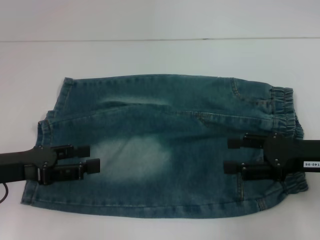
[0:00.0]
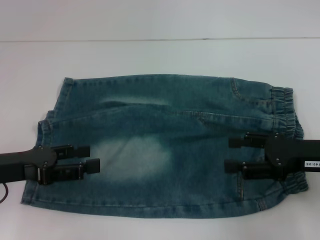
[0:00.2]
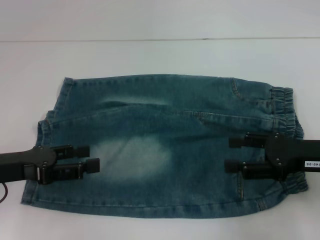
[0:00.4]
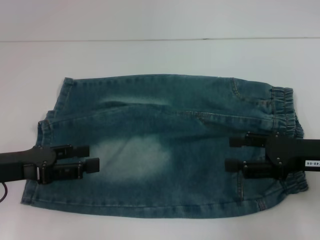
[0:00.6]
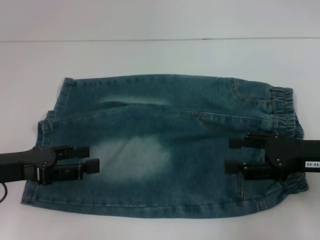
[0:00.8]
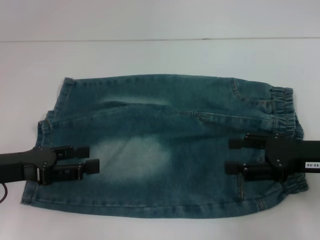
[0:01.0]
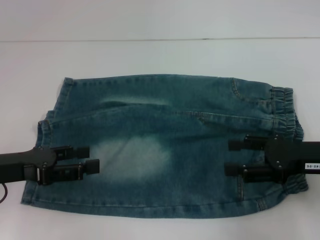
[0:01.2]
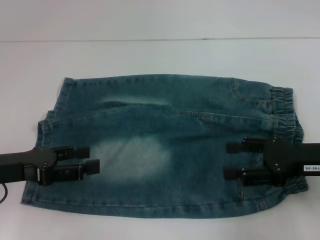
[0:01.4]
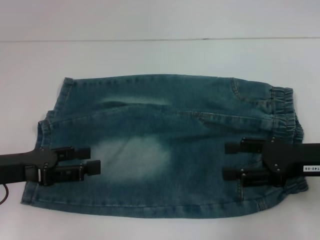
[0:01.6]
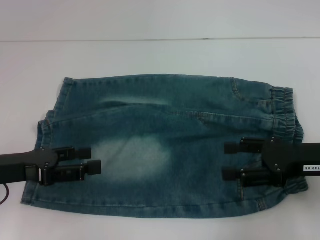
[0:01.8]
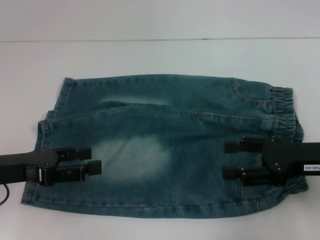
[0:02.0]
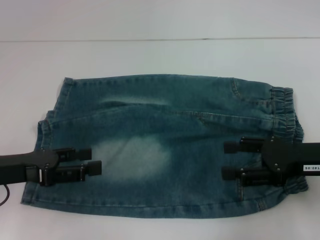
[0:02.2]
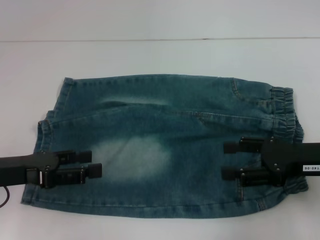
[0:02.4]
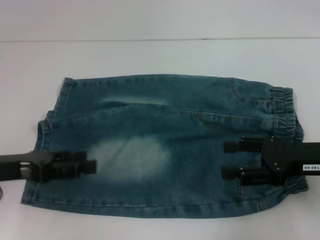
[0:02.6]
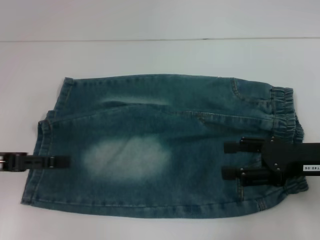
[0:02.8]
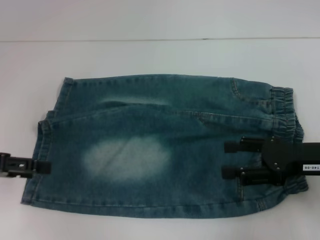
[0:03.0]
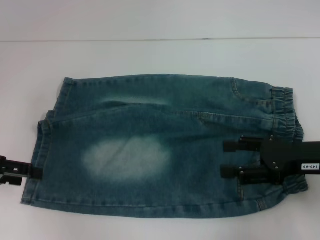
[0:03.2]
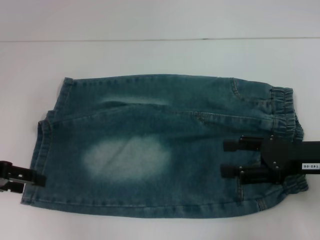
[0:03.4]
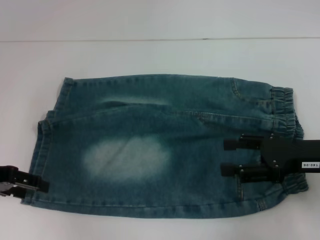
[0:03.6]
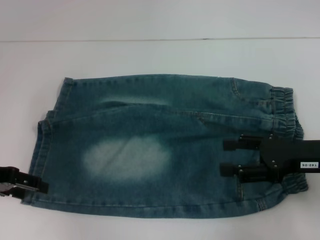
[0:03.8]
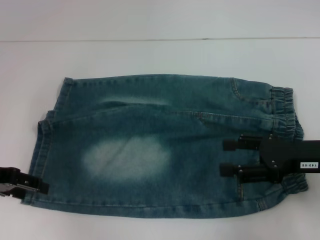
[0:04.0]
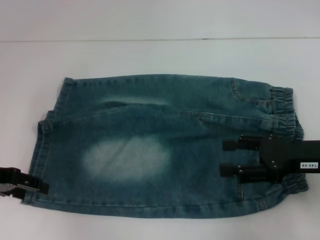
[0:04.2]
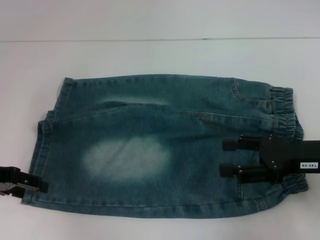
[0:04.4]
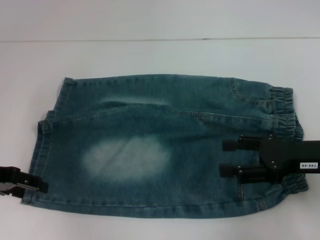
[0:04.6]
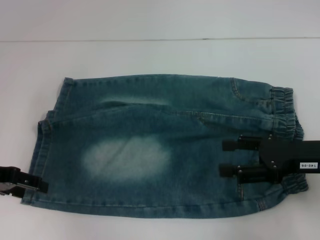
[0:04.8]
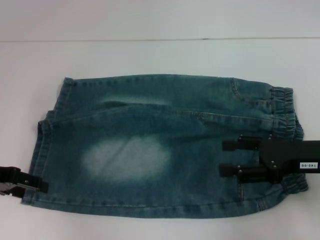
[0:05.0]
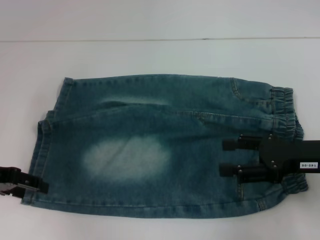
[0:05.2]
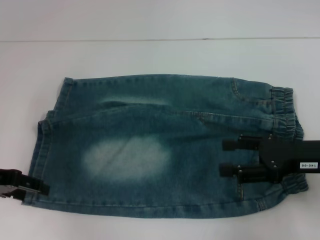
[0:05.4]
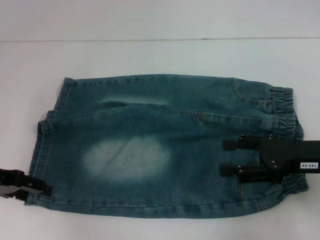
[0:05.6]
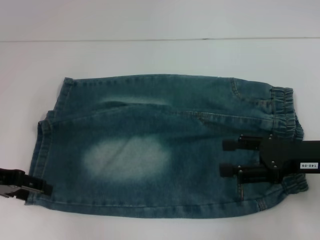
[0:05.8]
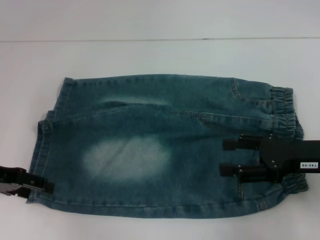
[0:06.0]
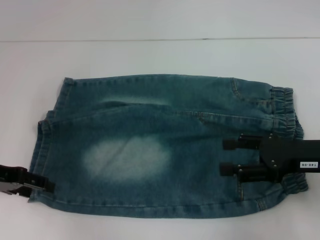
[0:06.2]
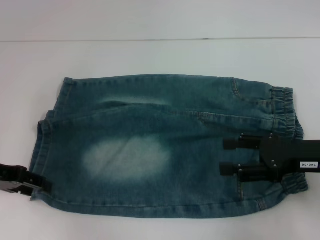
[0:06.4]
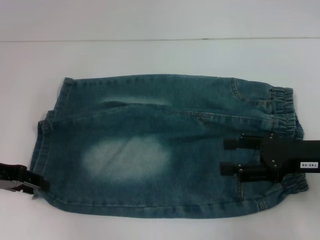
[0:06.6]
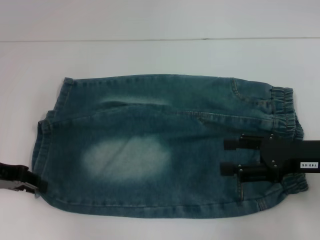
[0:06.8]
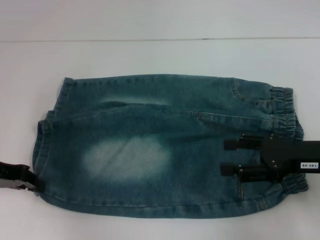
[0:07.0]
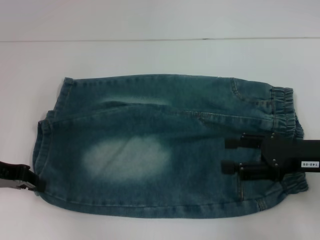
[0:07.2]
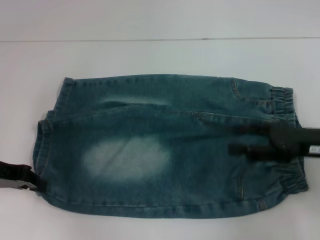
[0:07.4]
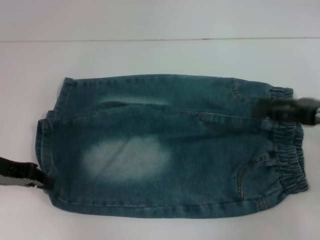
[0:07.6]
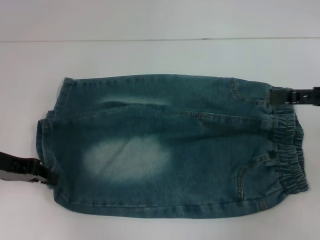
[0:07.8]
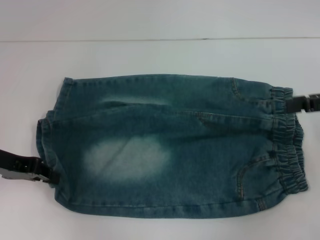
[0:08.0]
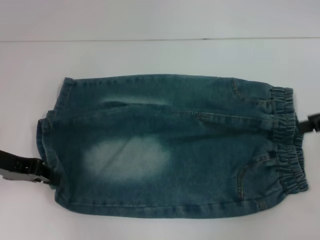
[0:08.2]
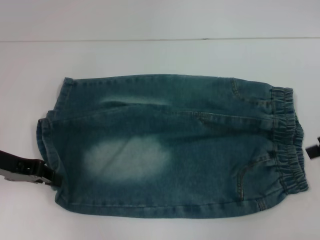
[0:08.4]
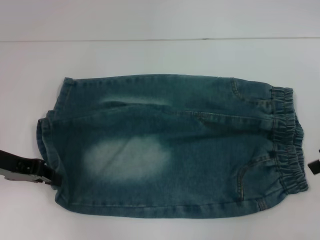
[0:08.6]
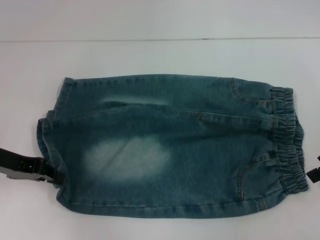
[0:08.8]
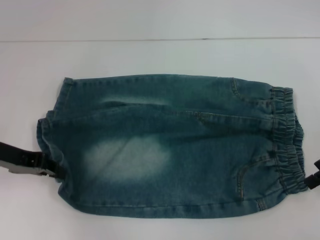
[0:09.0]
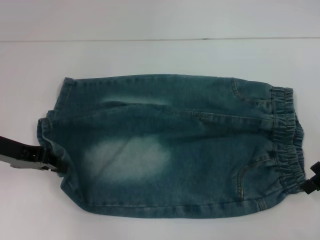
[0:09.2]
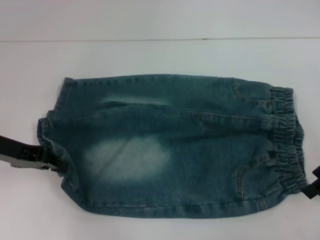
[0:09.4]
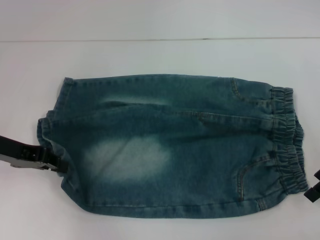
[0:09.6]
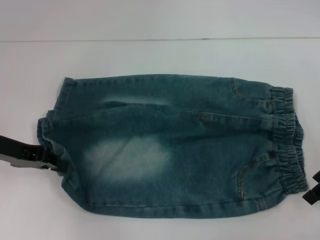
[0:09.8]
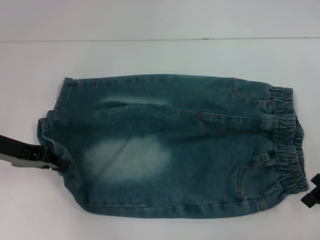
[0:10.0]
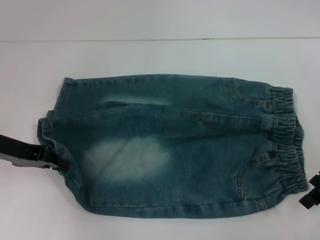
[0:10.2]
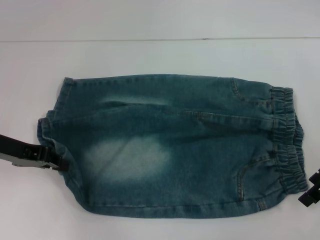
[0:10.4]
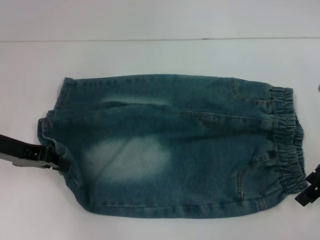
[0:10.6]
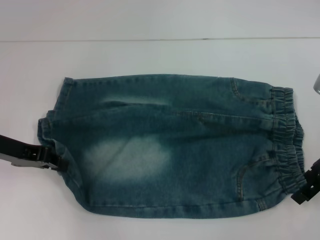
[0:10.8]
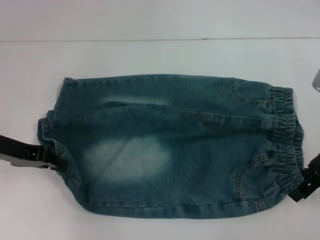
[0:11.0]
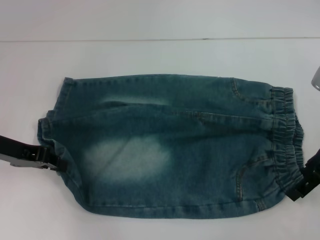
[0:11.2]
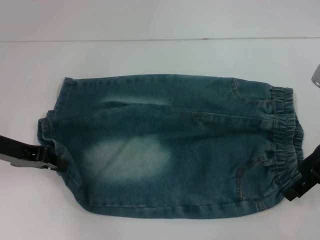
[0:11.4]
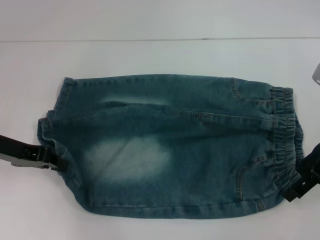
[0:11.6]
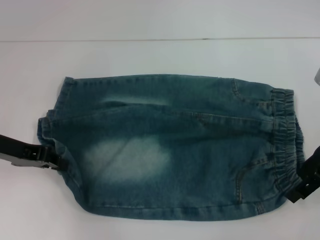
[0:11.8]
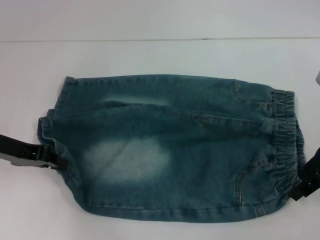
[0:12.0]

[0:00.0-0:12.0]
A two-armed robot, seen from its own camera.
Step, 0:00.0 to 0:07.2: Grab the lower left pant leg with your left hand.
0:00.0 to 0:01.6: Neither gripper changes place.
0:01.6 to 0:03.0: The left gripper moves roughly 5 cm.
0:03.0 to 0:04.4: There are only small adjustments of the grippers.
0:04.4 to 0:06.0: The two grippers keep their place.
0:06.0 to 0:07.6: The right gripper changes place by roughly 5 cm. Meanwhile the left gripper closes its fingers.
0:09.0 to 0:12.0: The grippers make only small movements.

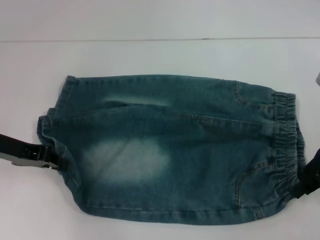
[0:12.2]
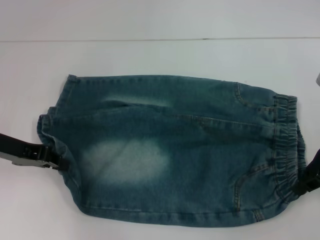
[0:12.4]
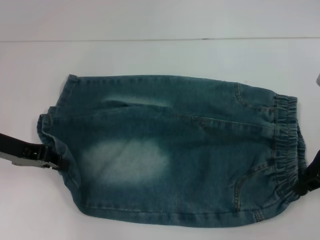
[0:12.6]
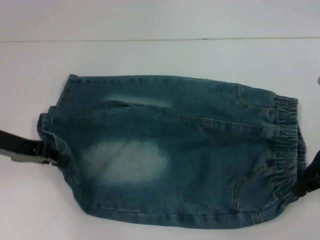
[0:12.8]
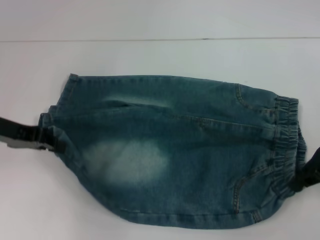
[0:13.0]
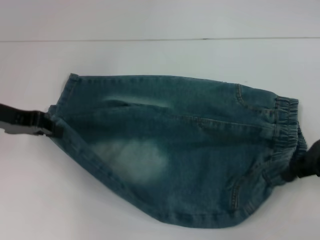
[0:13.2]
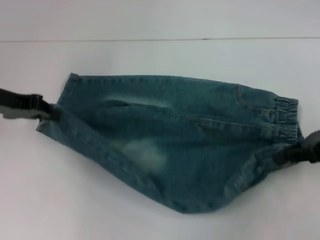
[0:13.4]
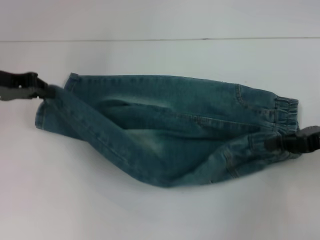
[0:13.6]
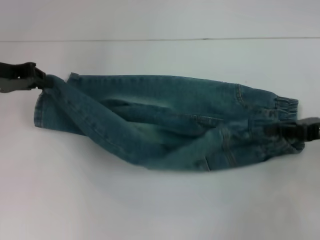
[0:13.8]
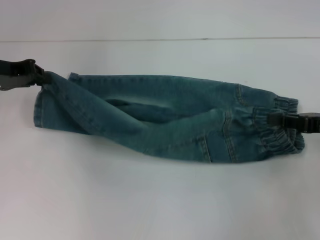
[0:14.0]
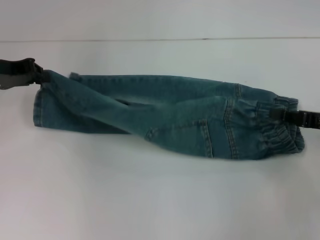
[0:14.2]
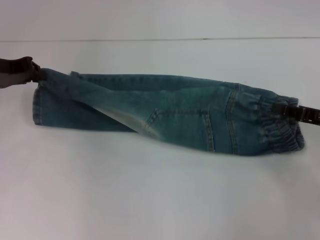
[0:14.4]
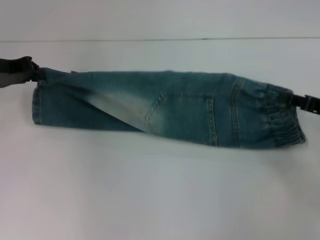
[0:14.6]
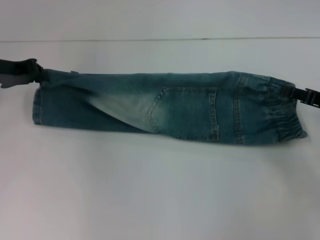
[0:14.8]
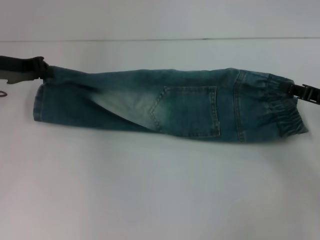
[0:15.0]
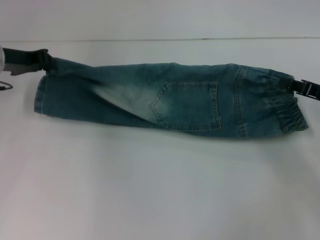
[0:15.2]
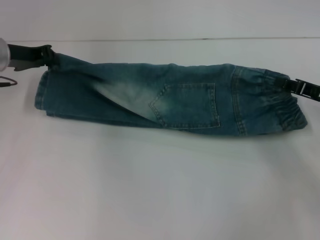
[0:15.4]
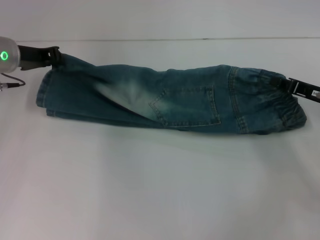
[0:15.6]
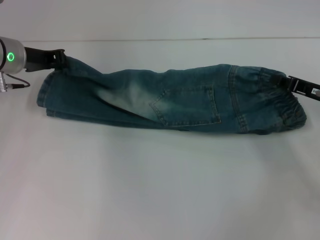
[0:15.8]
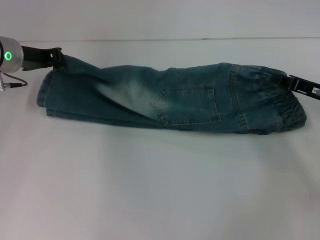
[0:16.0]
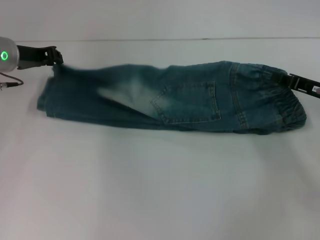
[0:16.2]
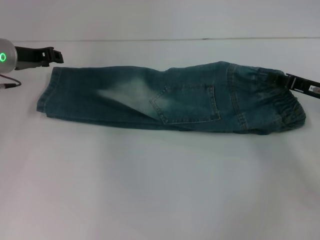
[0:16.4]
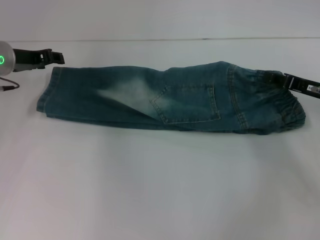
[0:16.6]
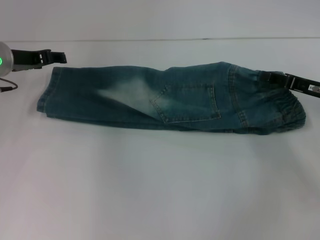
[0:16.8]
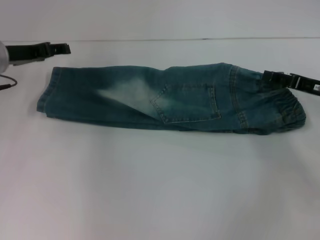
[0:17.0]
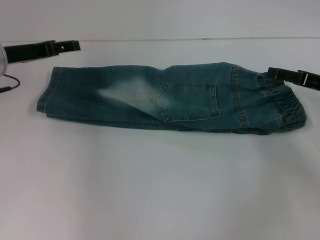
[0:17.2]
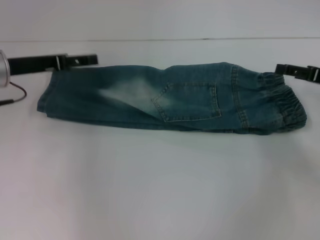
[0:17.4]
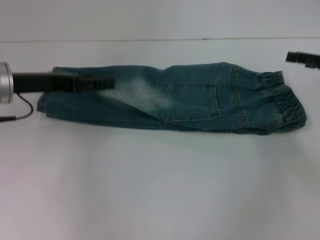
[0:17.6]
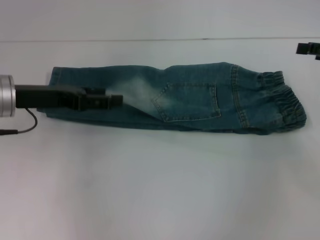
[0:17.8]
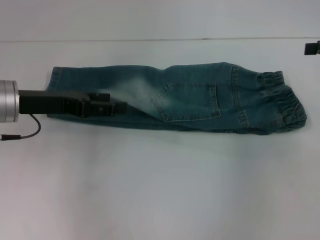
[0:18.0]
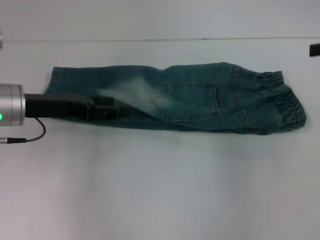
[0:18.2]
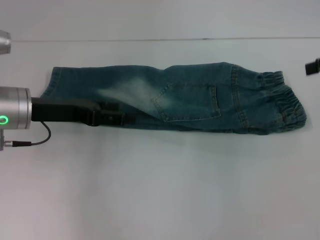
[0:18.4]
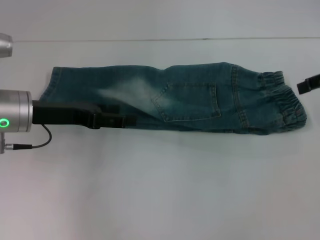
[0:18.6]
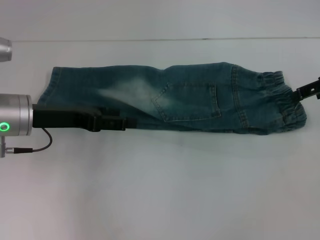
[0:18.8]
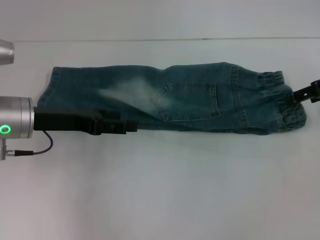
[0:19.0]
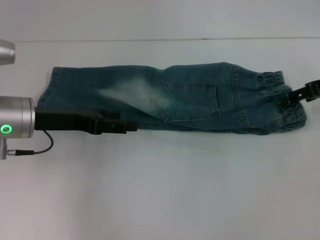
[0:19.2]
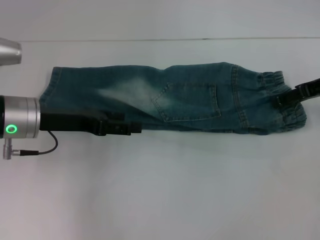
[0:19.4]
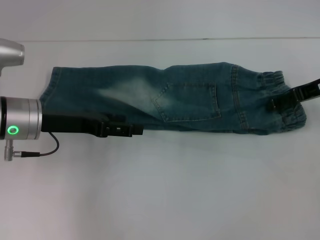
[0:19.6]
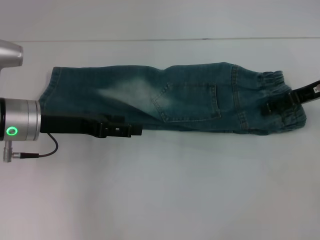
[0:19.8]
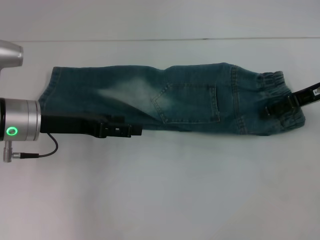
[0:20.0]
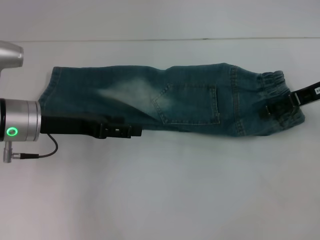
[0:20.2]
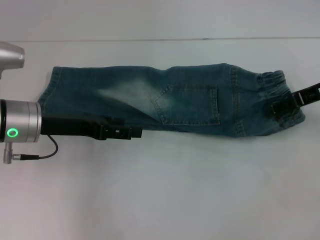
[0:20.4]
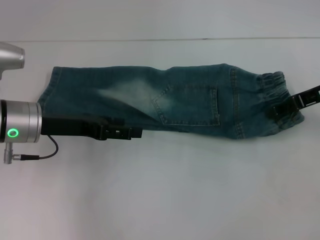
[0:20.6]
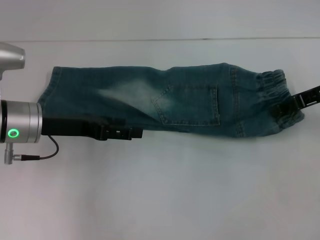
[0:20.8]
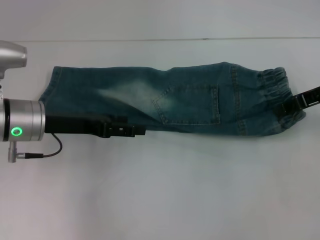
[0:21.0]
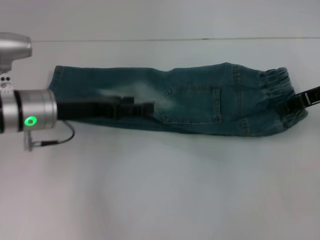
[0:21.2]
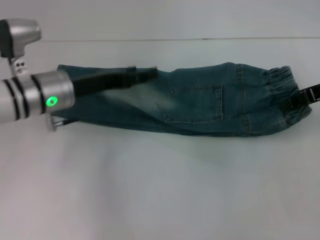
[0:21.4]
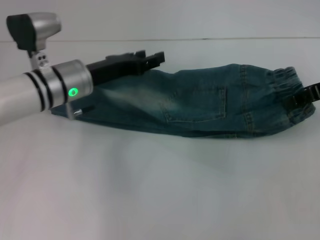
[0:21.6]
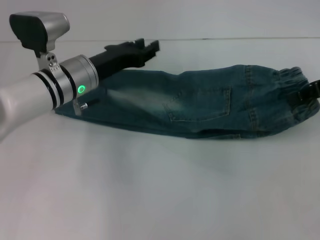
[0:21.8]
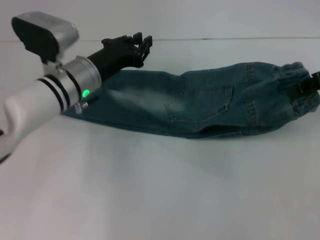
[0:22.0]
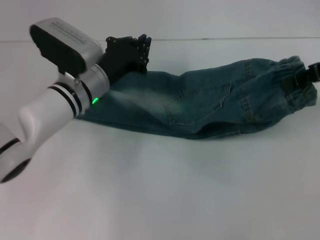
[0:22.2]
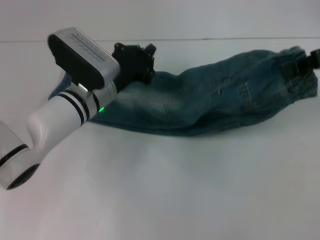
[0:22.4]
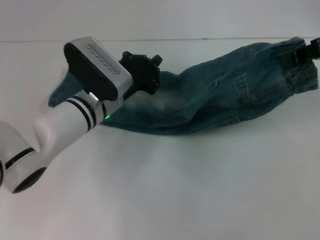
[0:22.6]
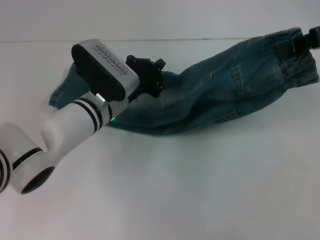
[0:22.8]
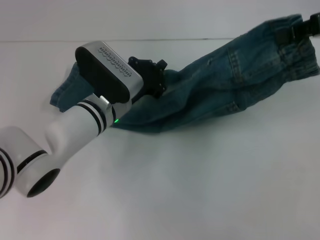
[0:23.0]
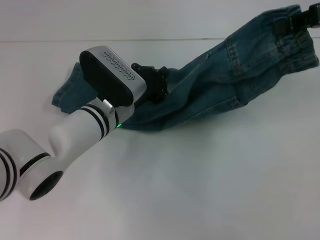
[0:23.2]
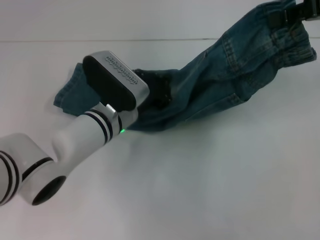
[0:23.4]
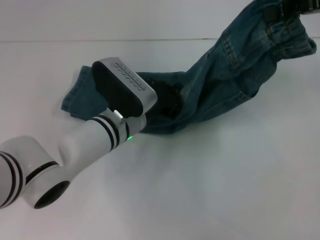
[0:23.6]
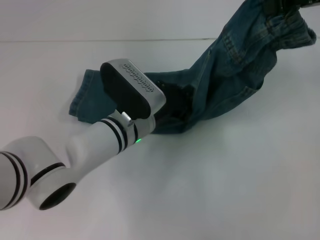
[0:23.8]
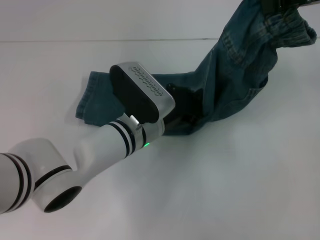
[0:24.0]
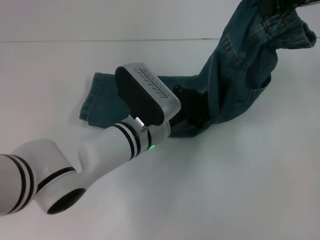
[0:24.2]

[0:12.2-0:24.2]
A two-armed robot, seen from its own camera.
Step, 0:12.6 to 0:16.2: Fold upward with your left hand.
Step, 0:16.6 to 0:17.2: Fold upward with your right hand.
Step, 0:17.4 to 0:21.0: Grab the waistband with your right hand.
0:12.2 to 0:13.8: The left gripper heads forward, covering approximately 5 cm. Meanwhile the right gripper shifts by approximately 5 cm, and closes its fingers.
0:15.2 to 0:16.6: The left gripper opens.
0:16.6 to 0:18.2: The right gripper shifts roughly 15 cm upward, and opens. The left gripper is displaced backward by roughly 10 cm, and opens up.
0:18.2 to 0:19.8: The right gripper shifts some 10 cm downward and to the left.
0:19.8 to 0:21.2: The right gripper closes its fingers.
0:21.2 to 0:22.6: The left gripper heads to the right and downward, covering approximately 10 cm, and closes up. Meanwhile the right gripper is displaced upward by some 10 cm.
0:22.6 to 0:24.2: The left gripper shifts roughly 5 cm to the right. Meanwhile the right gripper is displaced upward by approximately 5 cm.
